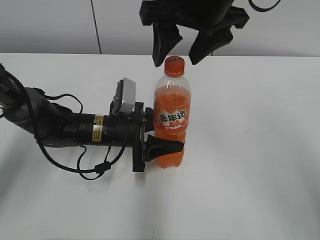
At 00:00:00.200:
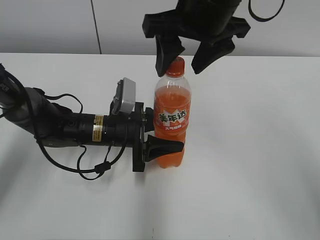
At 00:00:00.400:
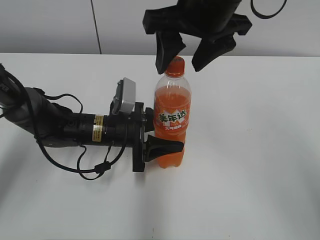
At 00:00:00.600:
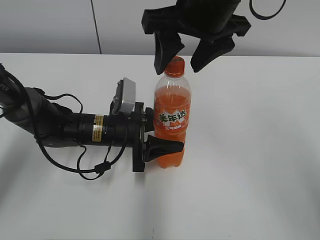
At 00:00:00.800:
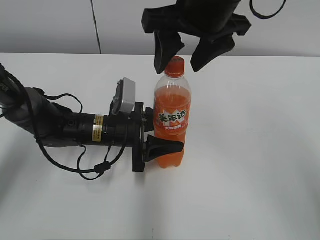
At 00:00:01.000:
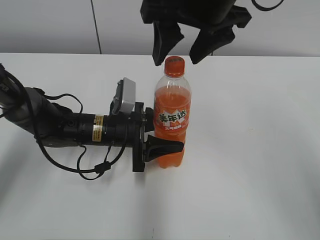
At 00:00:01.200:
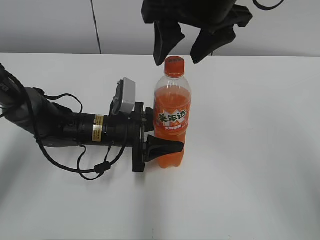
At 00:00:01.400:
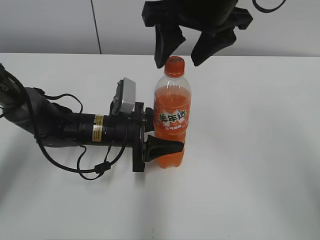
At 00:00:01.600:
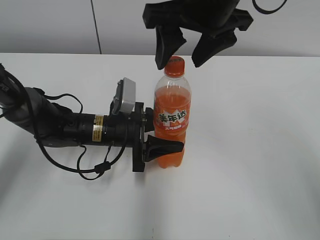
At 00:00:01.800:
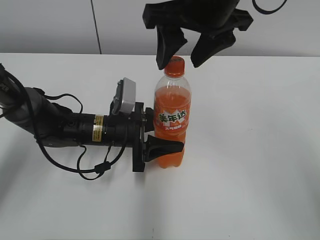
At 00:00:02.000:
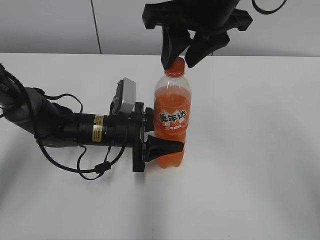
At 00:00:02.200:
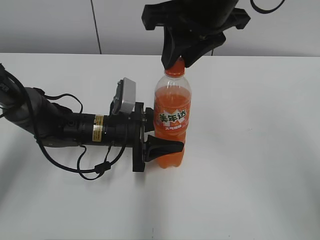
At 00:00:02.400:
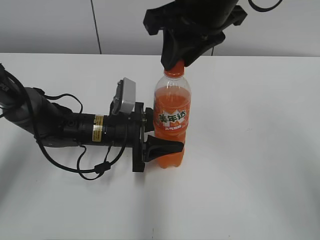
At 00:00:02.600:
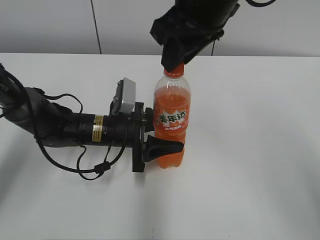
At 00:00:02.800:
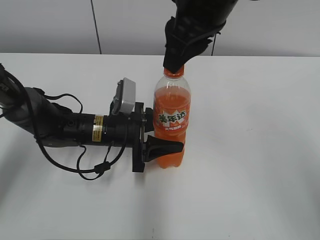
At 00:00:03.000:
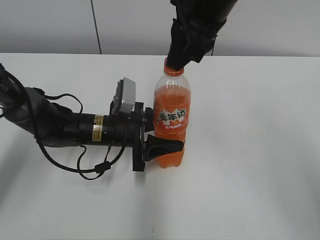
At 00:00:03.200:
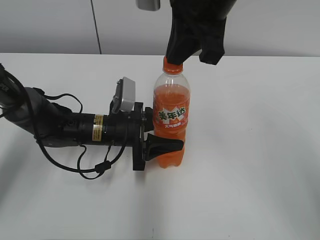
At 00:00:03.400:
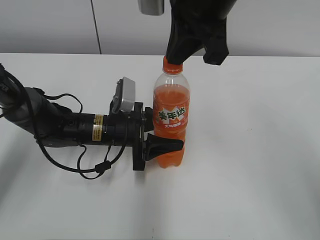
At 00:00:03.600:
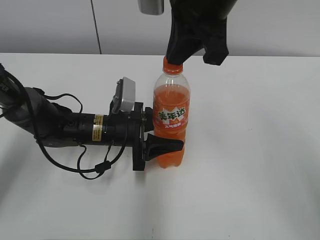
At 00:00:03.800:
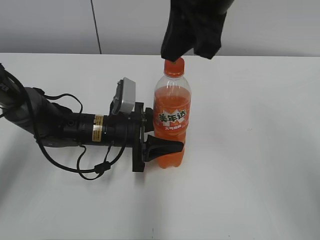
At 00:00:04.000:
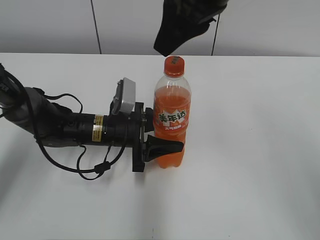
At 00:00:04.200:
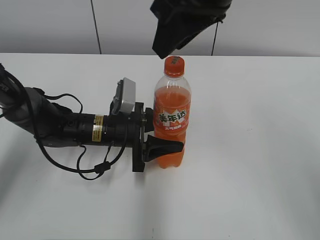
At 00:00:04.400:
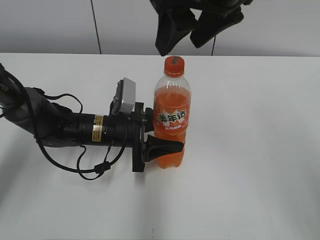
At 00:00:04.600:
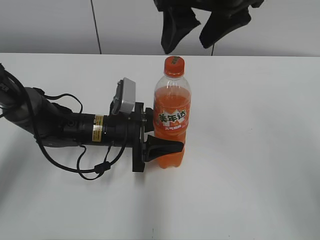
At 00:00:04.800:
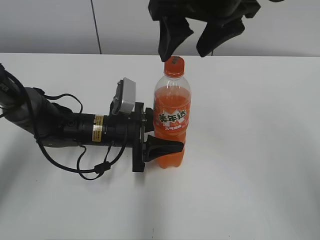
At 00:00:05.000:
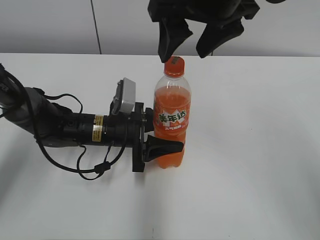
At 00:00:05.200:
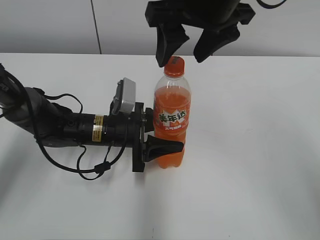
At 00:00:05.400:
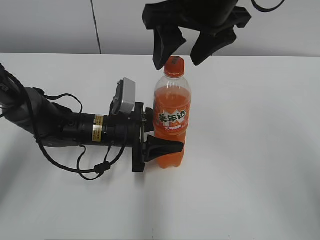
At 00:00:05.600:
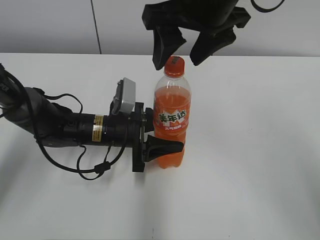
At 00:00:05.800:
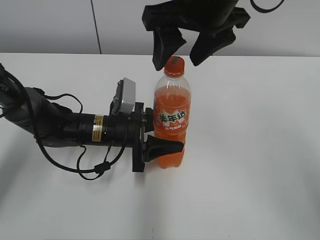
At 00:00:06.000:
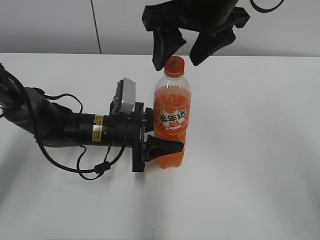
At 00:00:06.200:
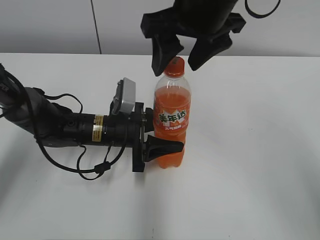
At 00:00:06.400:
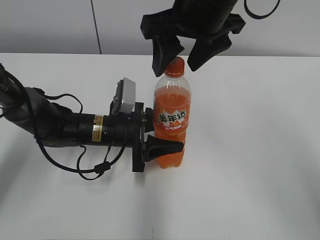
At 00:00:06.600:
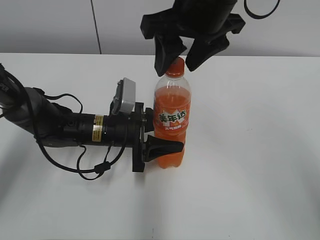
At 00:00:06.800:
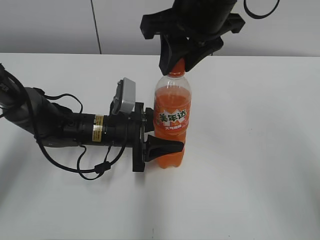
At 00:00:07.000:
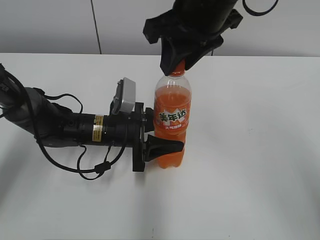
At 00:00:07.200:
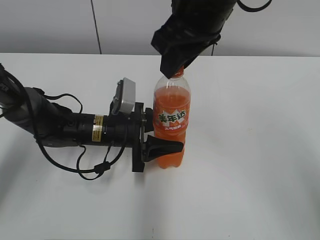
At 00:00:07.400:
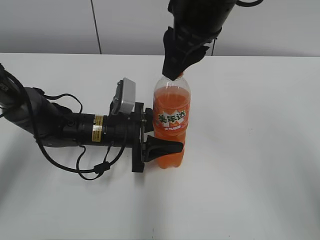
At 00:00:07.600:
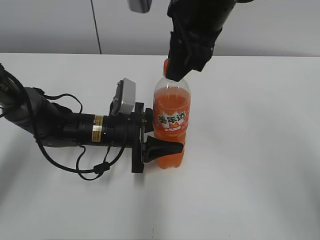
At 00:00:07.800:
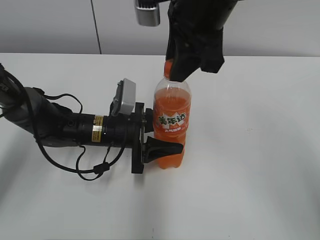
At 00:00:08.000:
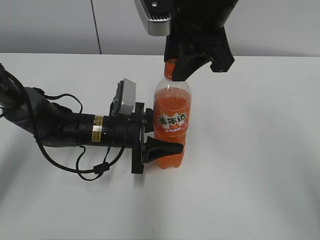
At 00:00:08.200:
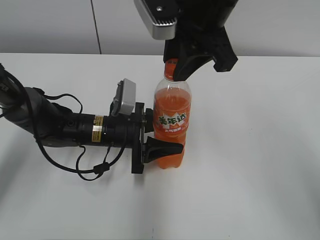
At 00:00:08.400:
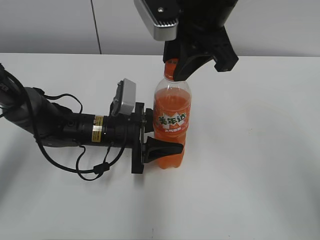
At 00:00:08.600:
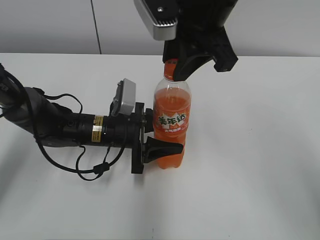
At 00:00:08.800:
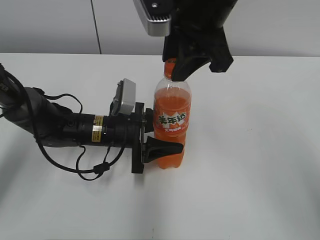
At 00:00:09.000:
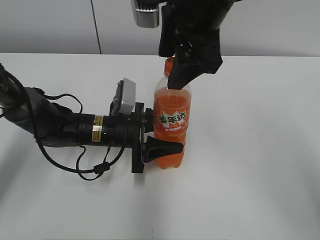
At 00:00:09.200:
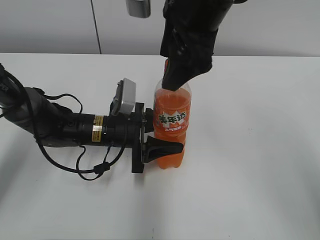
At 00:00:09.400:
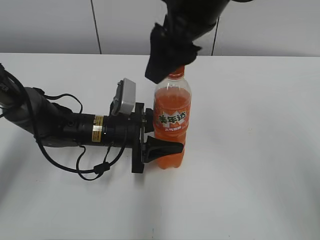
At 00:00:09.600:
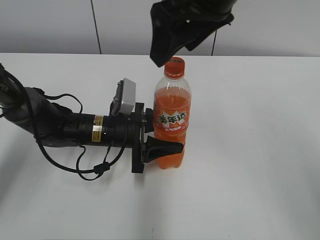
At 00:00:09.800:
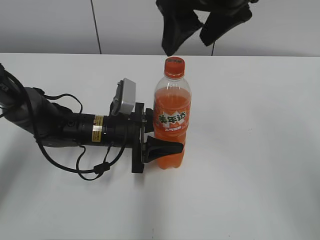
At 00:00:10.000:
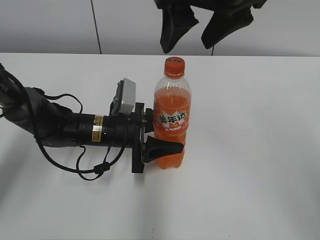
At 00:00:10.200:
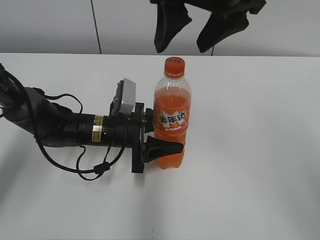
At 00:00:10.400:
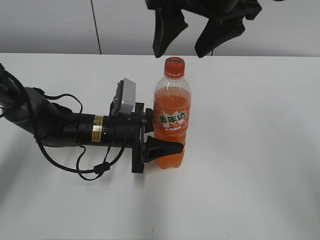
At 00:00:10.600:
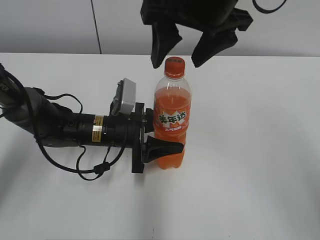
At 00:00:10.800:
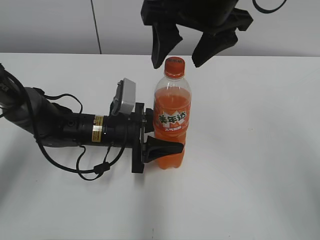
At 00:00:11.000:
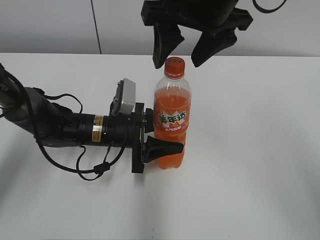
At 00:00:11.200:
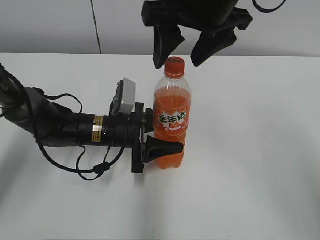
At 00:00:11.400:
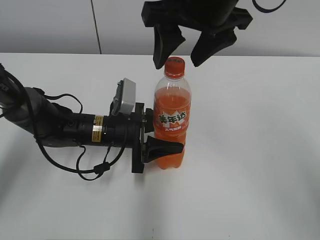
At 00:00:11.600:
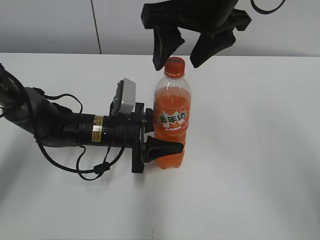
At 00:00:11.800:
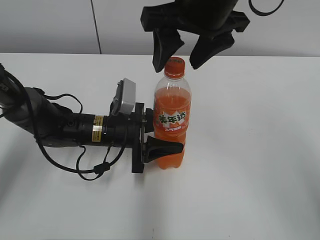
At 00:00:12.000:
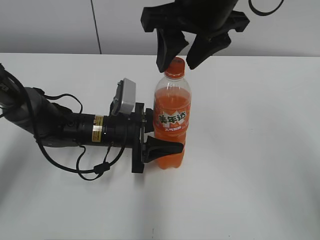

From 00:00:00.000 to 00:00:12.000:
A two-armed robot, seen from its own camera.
From 00:00:00.000 to 00:00:01.600: Both grippers stay put.
From 00:00:01.600 to 00:00:03.000: The right gripper closes.
From 00:00:03.000 to 00:00:04.400: The right gripper opens up.
From 00:00:04.400 to 00:00:06.000: The grippers make only small movements.
From 00:00:06.000 to 00:00:07.600: The right gripper closes.
From 00:00:07.600 to 00:00:09.000: The right gripper opens.
From 00:00:10.400 to 00:00:12.000: The right gripper closes up.

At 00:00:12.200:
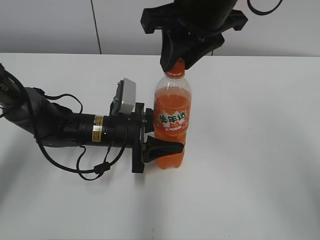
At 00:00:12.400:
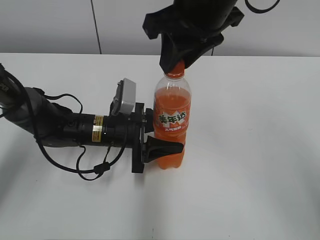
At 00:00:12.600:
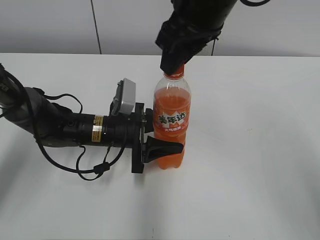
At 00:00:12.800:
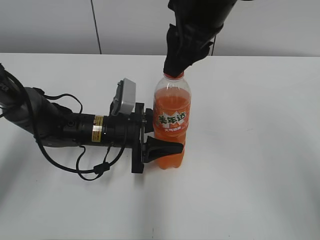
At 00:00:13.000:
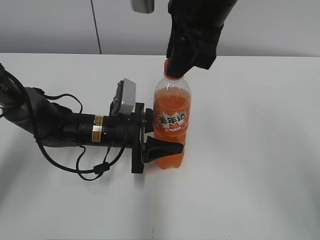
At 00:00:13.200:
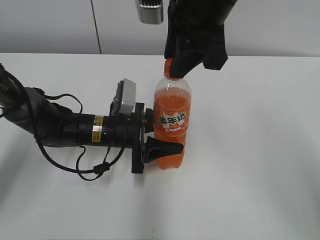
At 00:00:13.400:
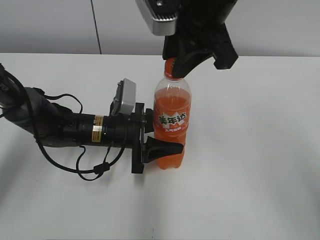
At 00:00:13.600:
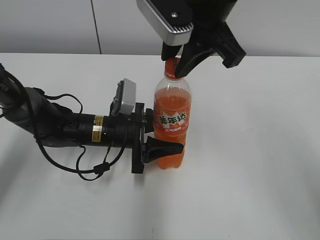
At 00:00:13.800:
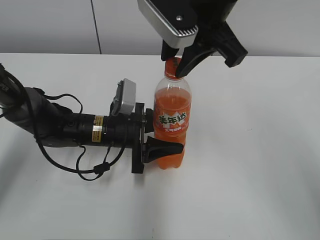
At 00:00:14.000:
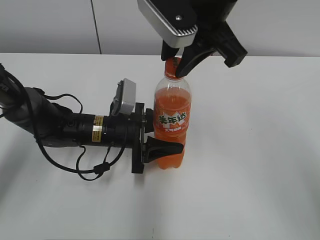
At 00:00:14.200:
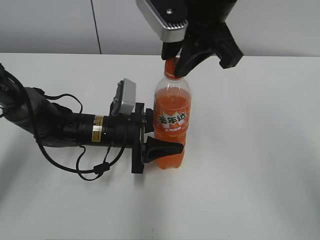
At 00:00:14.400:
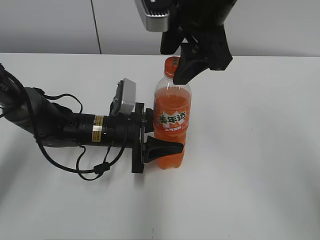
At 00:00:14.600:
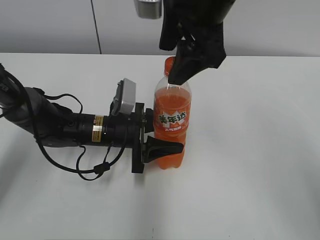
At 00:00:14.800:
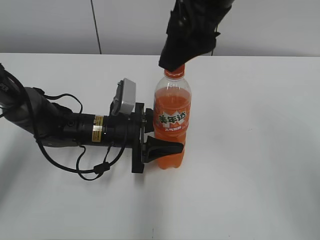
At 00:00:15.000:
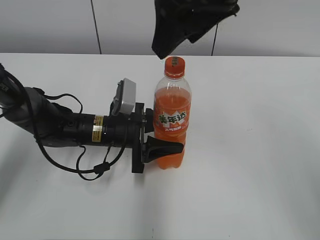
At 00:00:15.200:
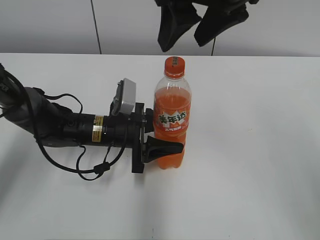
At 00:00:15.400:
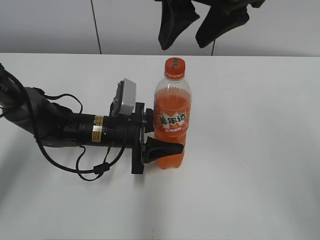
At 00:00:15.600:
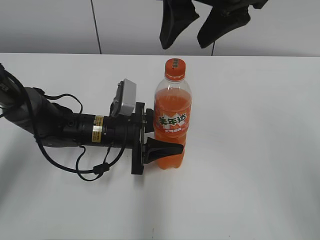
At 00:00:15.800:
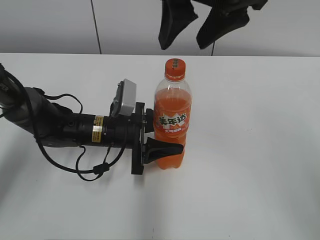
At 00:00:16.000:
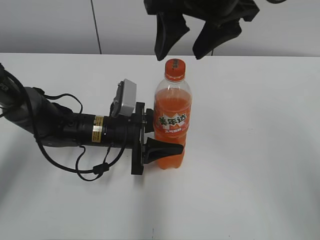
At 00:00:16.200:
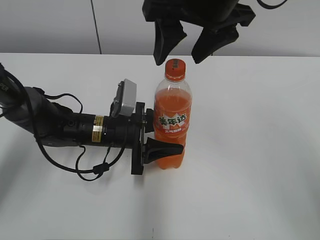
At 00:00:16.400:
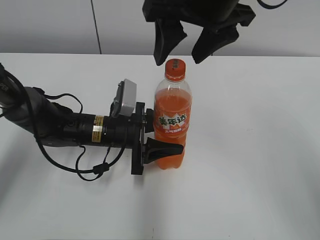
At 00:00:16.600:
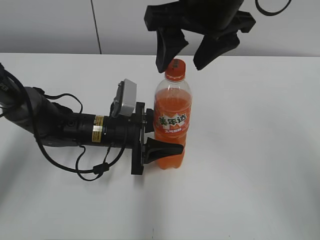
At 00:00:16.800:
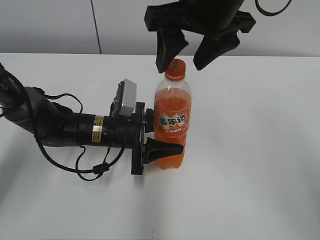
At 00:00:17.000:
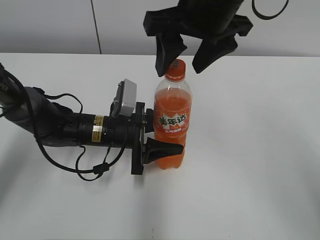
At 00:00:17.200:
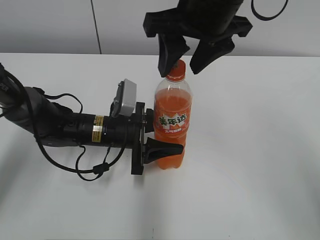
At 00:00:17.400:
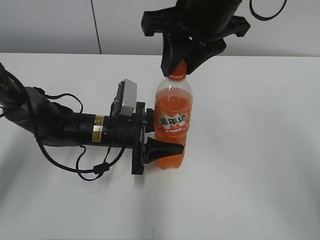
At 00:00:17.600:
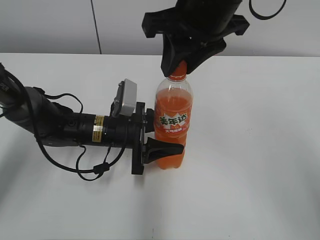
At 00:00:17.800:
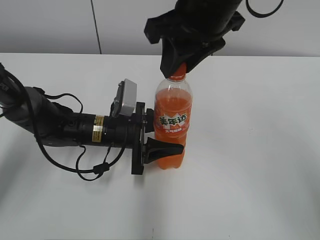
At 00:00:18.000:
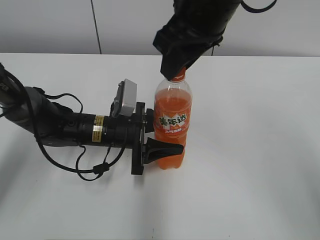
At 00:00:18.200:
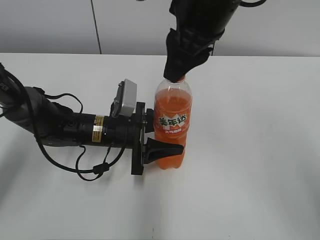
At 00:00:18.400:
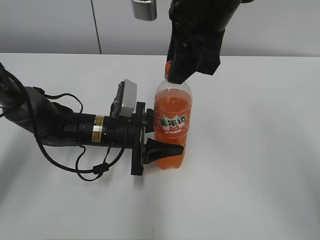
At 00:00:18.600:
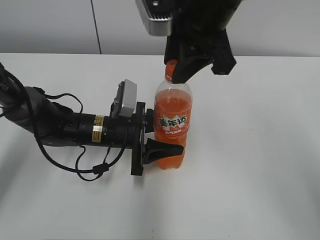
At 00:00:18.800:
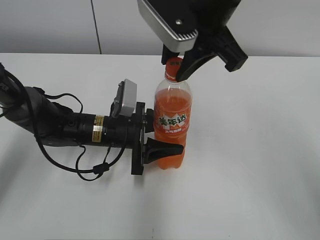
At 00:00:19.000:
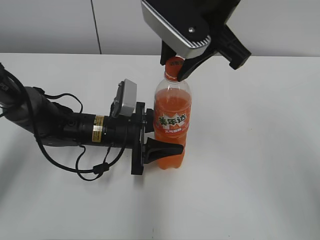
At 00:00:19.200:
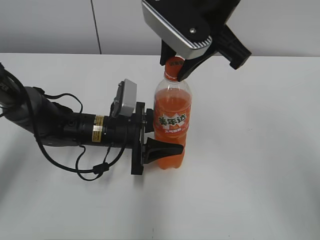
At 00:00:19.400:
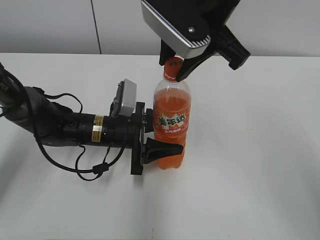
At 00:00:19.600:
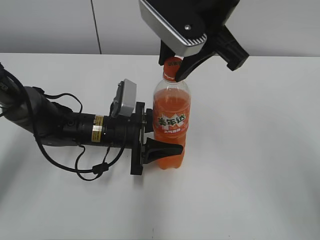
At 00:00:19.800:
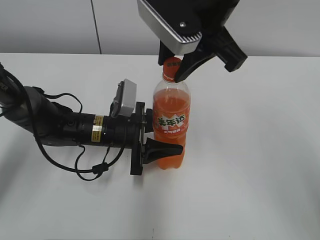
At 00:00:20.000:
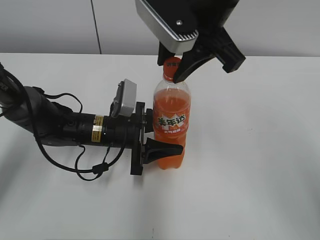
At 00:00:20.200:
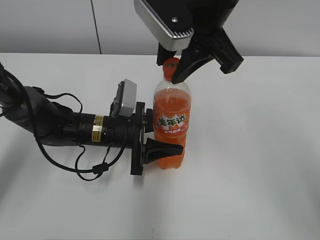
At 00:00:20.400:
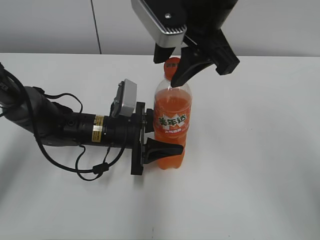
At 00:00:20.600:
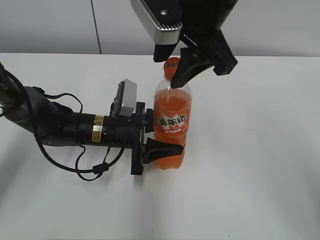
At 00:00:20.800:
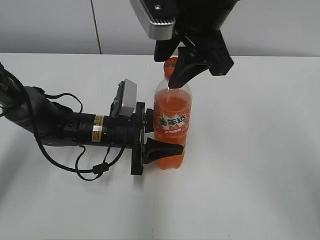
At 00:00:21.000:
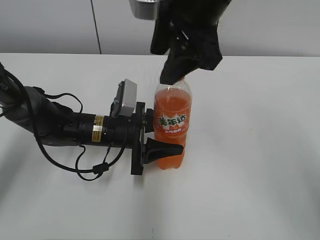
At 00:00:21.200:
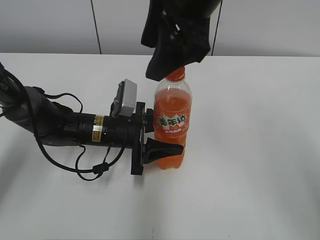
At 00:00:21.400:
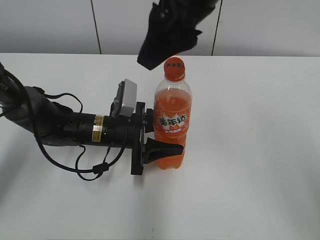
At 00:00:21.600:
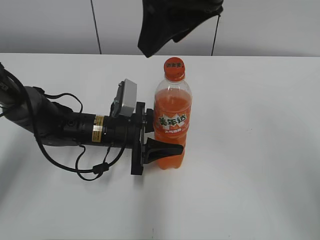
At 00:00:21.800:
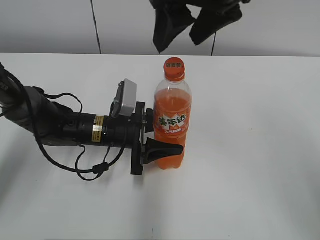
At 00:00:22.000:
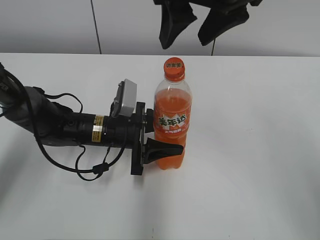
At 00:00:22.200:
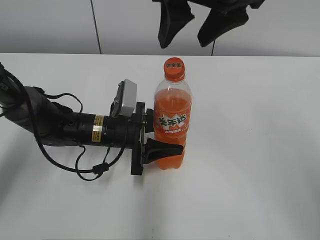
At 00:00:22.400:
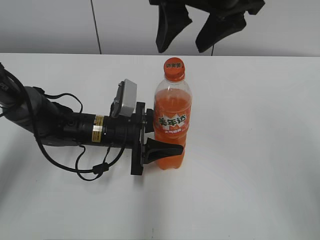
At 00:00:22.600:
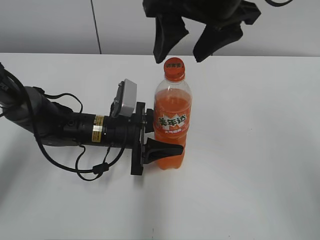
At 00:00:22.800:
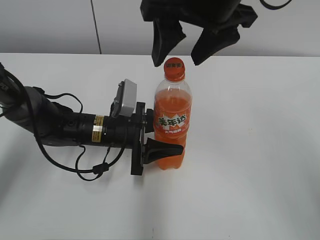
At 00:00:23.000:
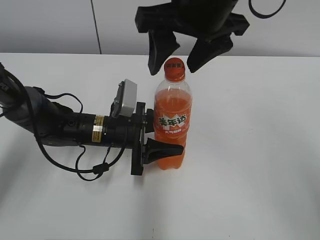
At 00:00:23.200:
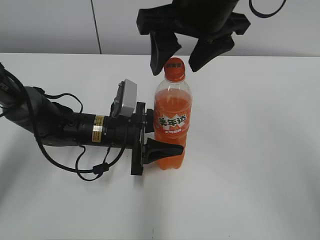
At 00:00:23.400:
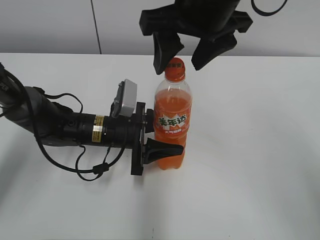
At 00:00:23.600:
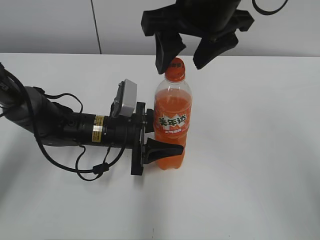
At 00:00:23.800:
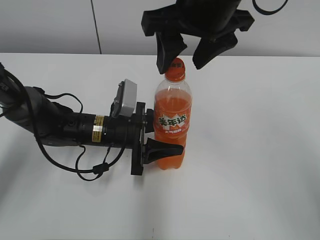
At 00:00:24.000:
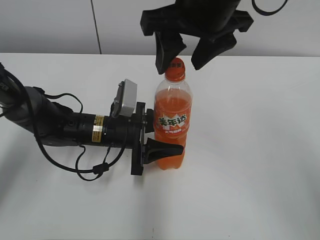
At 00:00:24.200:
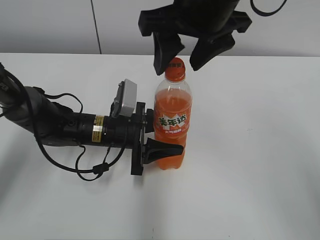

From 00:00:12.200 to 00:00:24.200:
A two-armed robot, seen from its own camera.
From 00:00:13.800 to 00:00:15.200: The right gripper opens up.
From 00:00:15.200 to 00:00:16.600: The grippers move only a little.
From 00:00:16.600 to 00:00:18.200: The right gripper closes up.
From 00:00:19.800 to 00:00:21.200: The right gripper opens its fingers.
From 00:00:22.600 to 00:00:24.200: The grippers move only a little.
